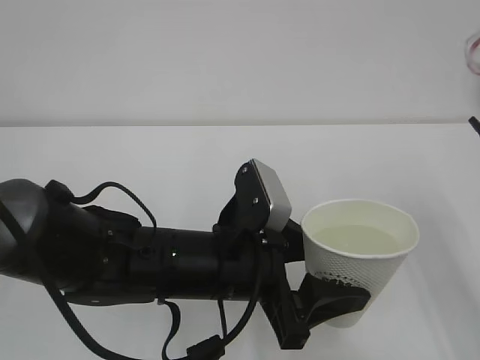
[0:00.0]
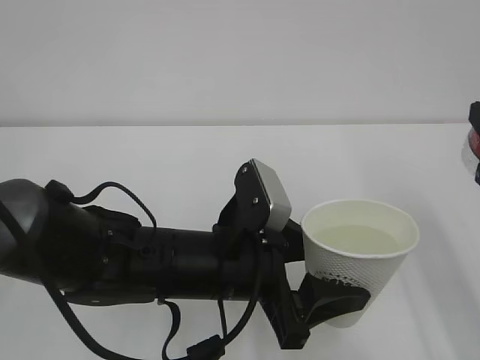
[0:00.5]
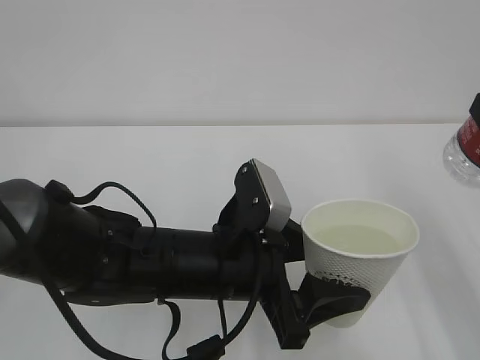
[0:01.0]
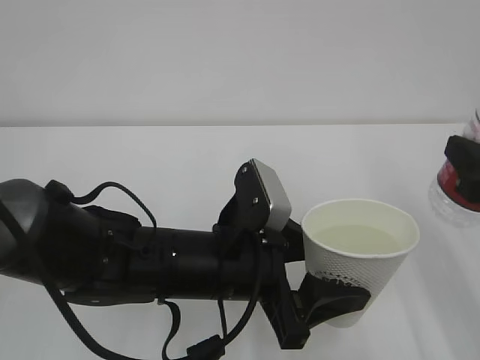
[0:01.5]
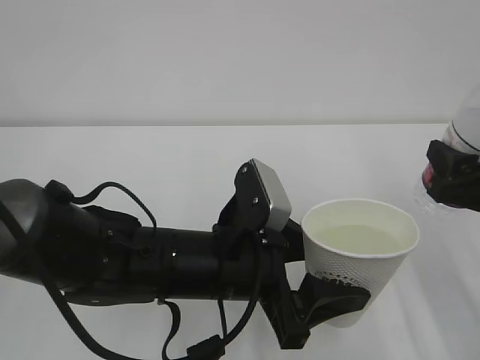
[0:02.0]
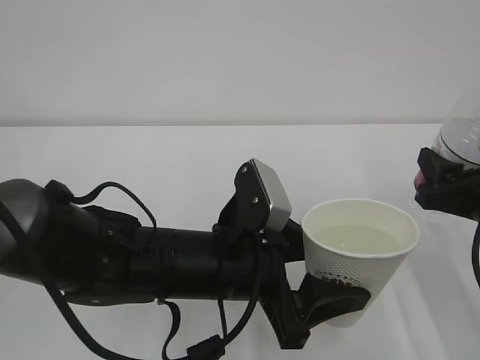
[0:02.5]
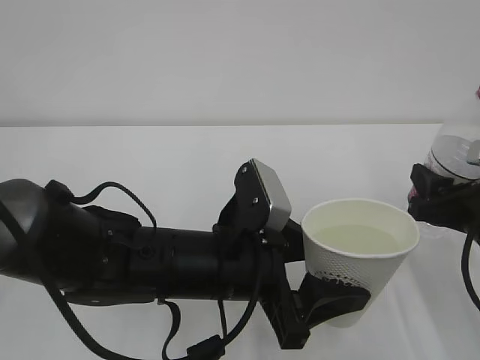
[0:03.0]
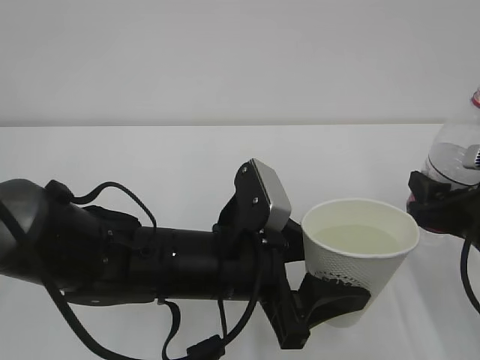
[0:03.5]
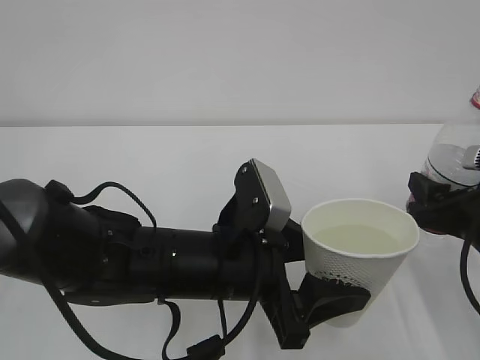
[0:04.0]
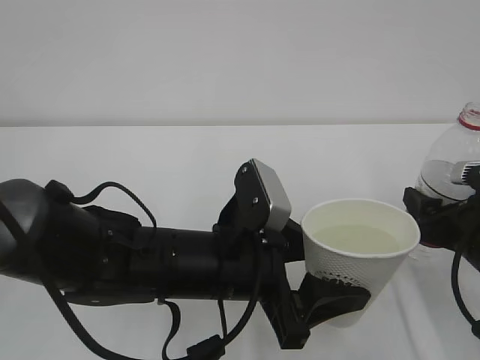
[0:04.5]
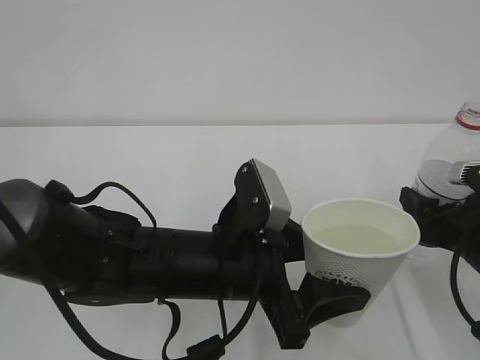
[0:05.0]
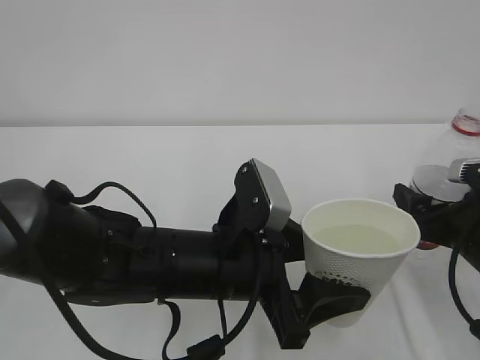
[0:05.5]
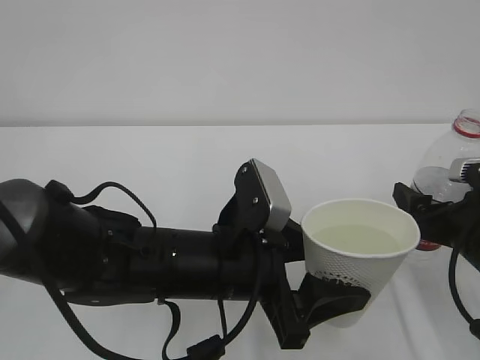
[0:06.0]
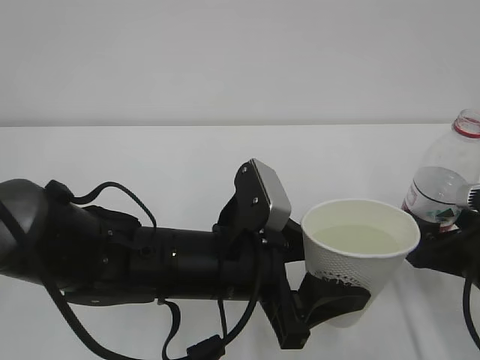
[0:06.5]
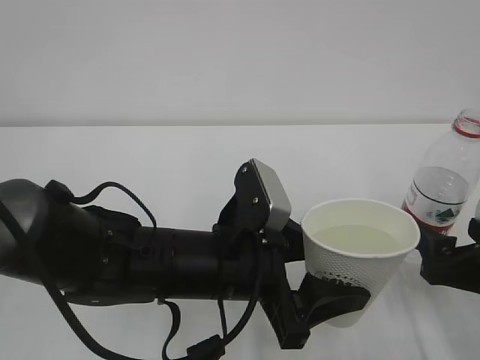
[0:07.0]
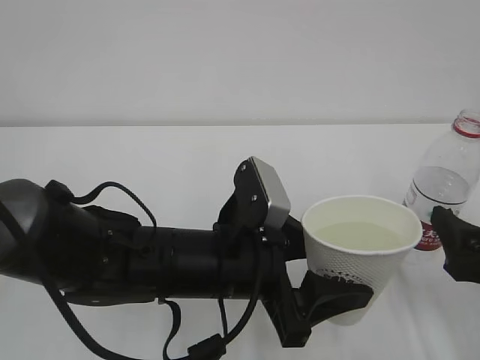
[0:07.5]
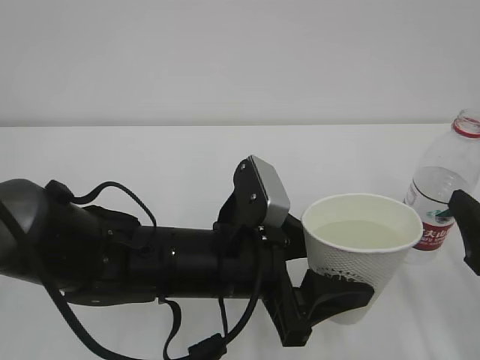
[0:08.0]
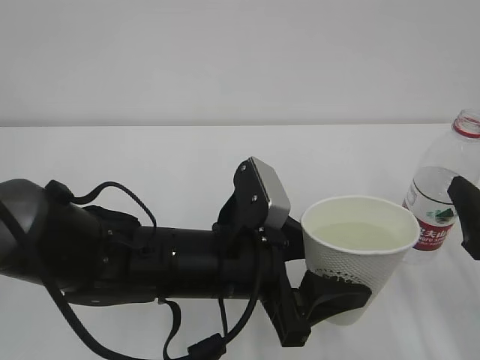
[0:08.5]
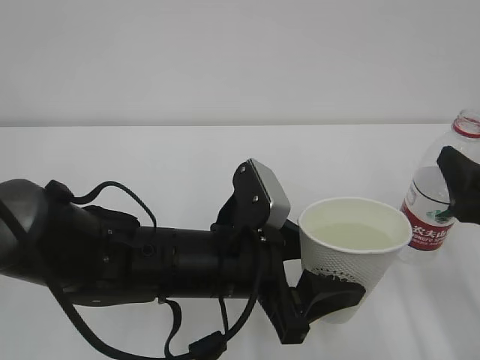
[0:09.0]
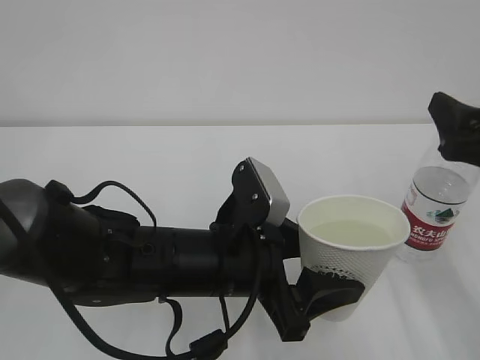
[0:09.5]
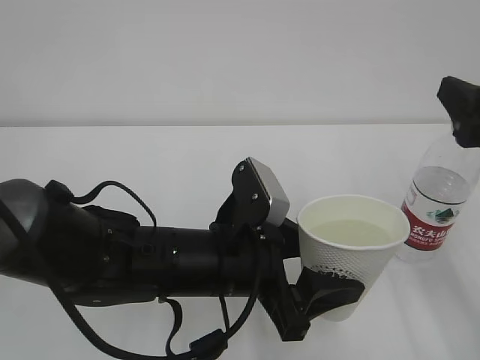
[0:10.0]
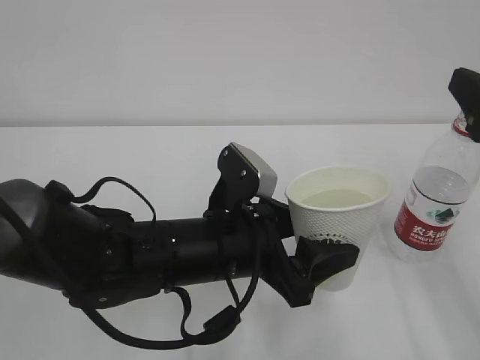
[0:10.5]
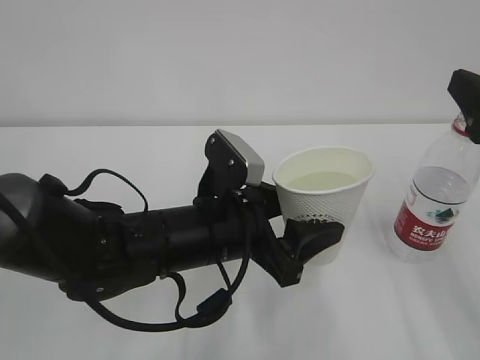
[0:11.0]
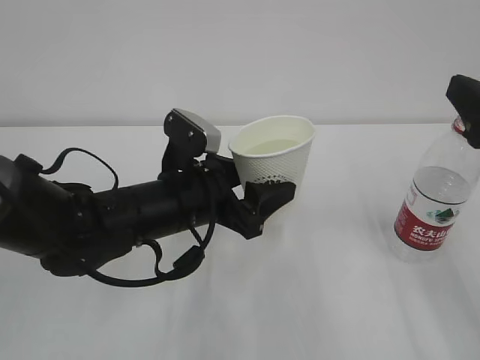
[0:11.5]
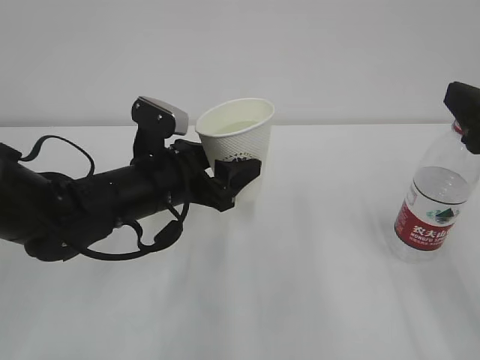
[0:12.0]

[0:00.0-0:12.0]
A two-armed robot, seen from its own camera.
0:00.0 to 0:02.0: The right gripper is displaced downward by about 5 cm.
0:02.0 to 0:04.0: The grippers make only small movements.
0:04.0 to 0:06.0: The right gripper opens its fingers.
0:06.0 to 0:08.0: The right gripper heads backward, covering about 10 cm.
0:08.0 to 0:10.0: The right gripper goes about 10 cm upward and forward.
0:10.0 to 0:12.0: The left gripper heads forward and to the left, covering some 10 cm.

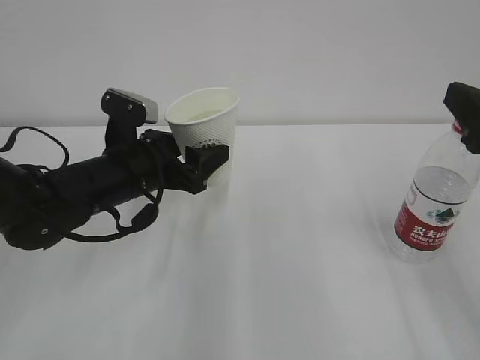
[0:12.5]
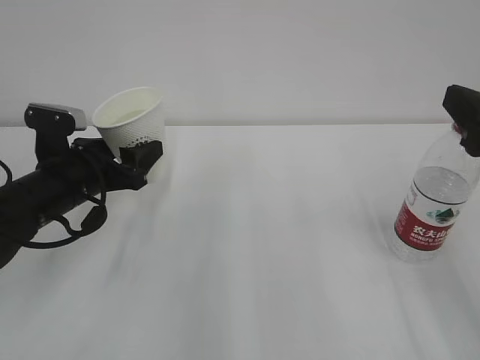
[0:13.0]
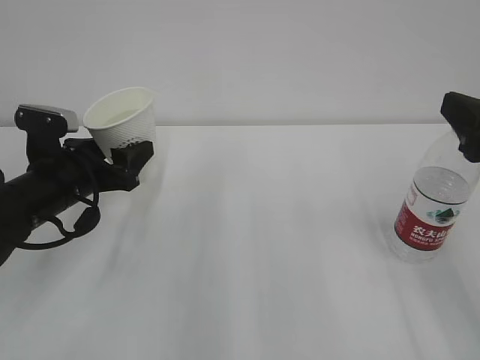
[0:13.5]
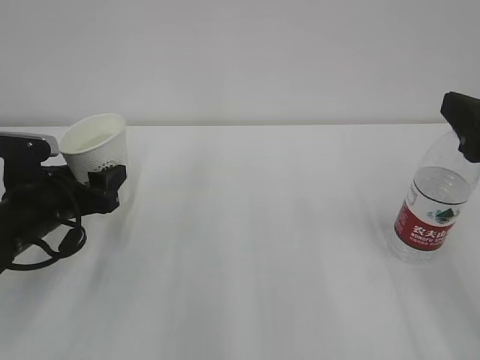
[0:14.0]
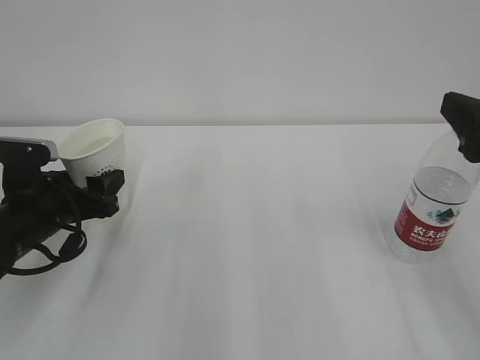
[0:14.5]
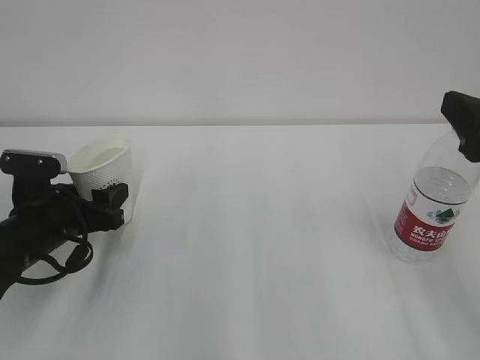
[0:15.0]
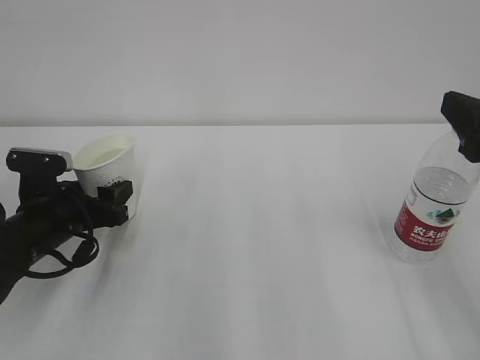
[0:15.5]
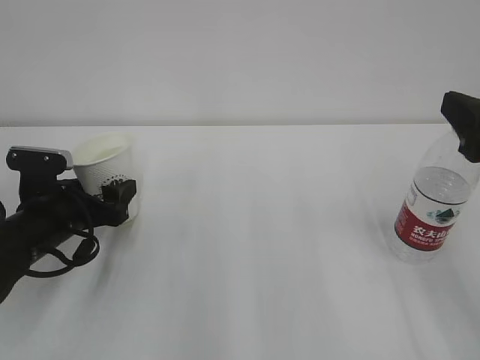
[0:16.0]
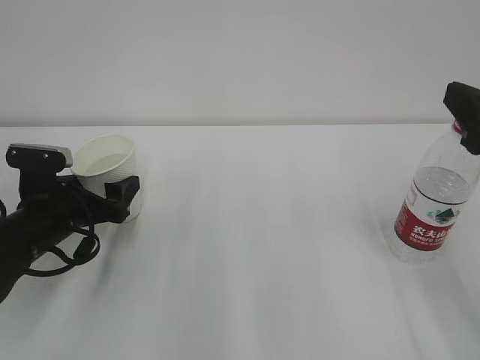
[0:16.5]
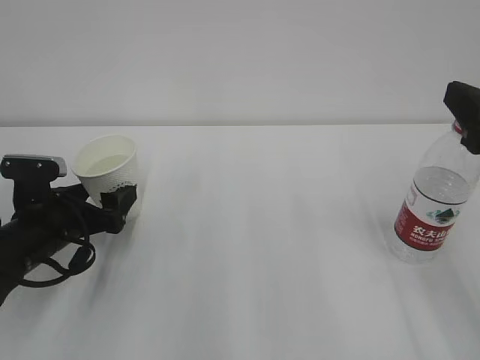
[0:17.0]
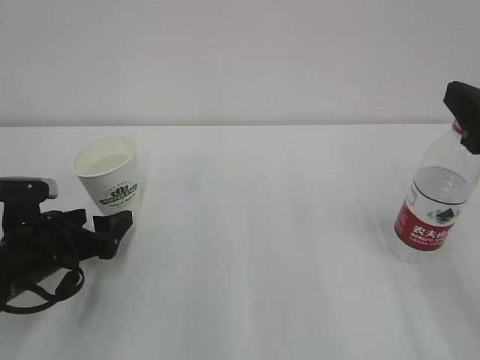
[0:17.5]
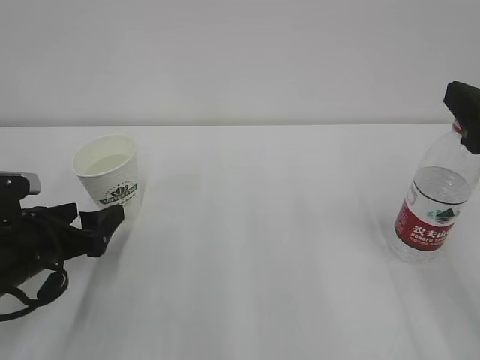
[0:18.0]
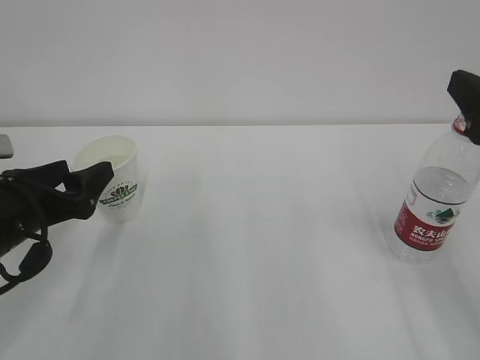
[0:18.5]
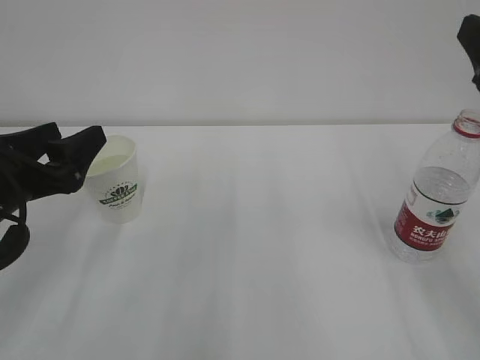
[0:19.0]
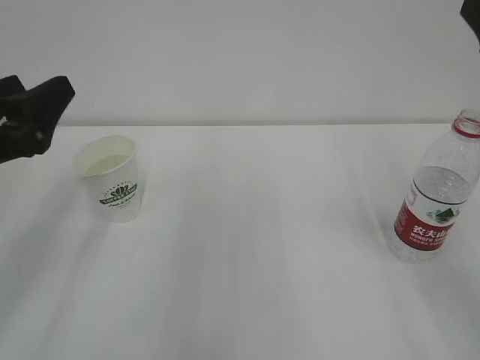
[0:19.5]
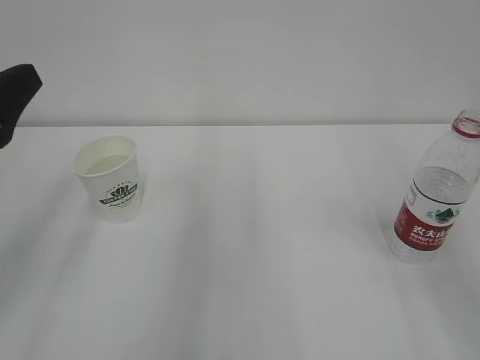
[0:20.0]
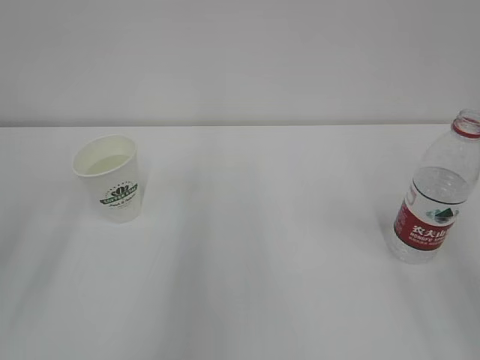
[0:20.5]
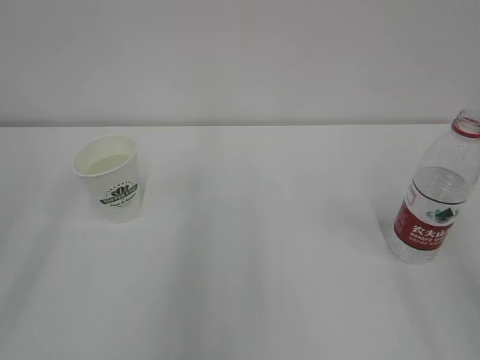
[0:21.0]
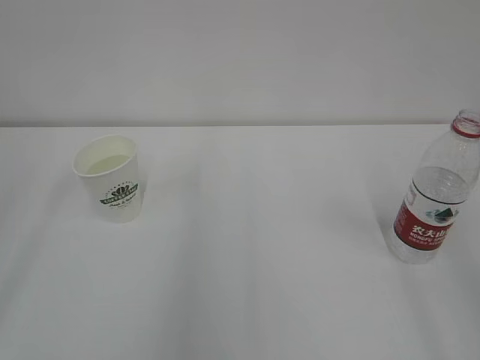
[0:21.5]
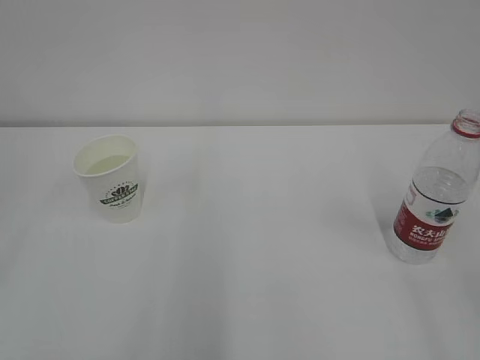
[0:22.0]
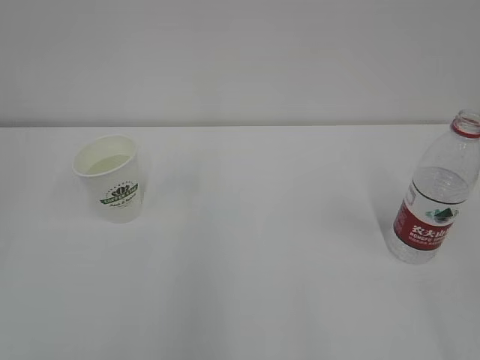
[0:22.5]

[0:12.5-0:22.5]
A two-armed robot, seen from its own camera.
0:12.5 to 0:14.5: The left gripper heads to the left, covering about 10 cm.
0:14.5 to 0:16.5: The left gripper opens up.
0:16.5 to 0:18.5: The left gripper shifts about 10 cm upward and backward.
0:18.5 to 0:20.5: The grippers both shift upward and backward by about 15 cm.
